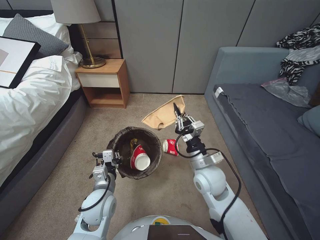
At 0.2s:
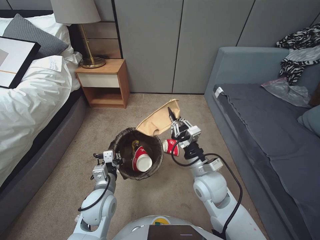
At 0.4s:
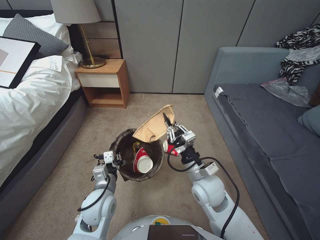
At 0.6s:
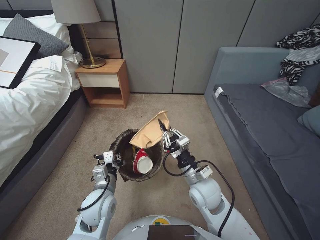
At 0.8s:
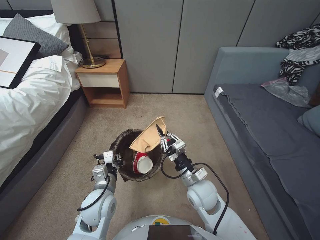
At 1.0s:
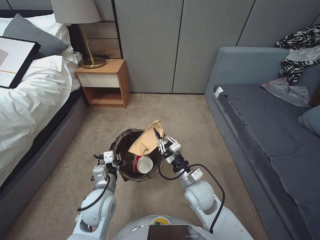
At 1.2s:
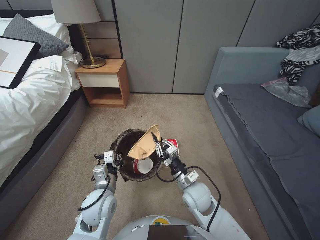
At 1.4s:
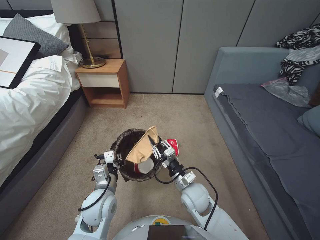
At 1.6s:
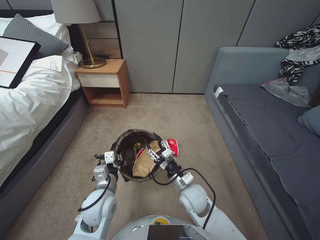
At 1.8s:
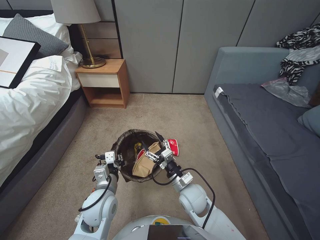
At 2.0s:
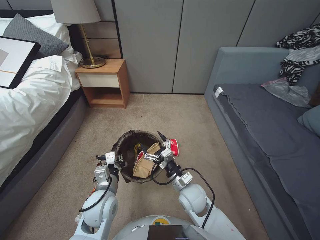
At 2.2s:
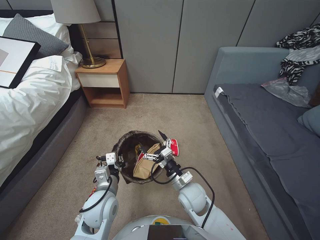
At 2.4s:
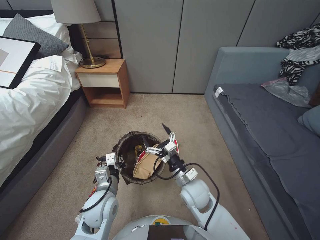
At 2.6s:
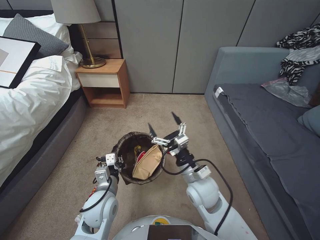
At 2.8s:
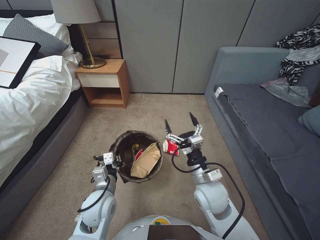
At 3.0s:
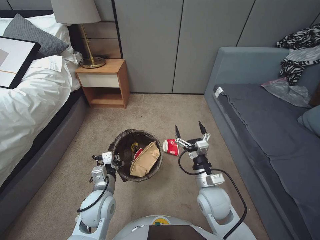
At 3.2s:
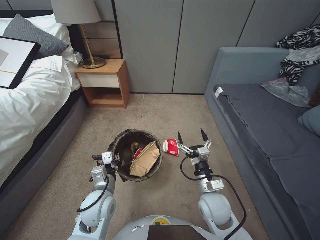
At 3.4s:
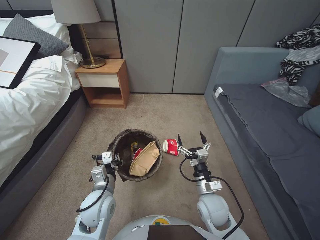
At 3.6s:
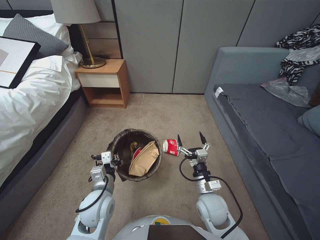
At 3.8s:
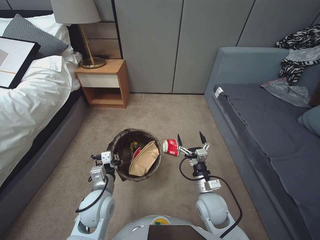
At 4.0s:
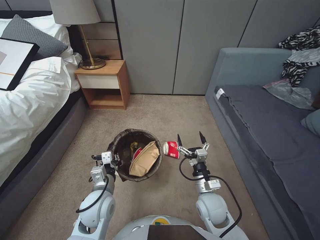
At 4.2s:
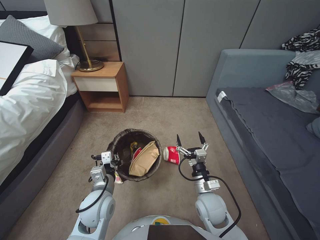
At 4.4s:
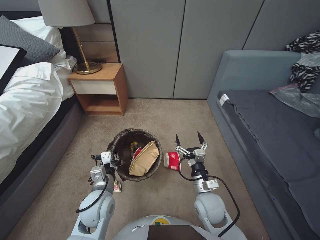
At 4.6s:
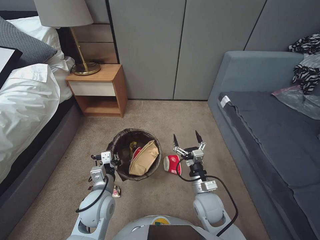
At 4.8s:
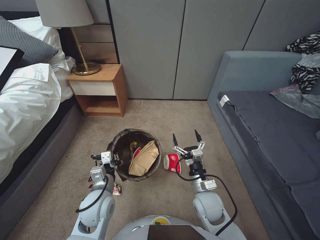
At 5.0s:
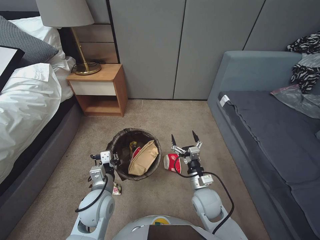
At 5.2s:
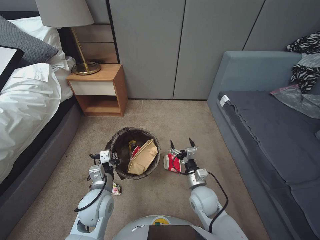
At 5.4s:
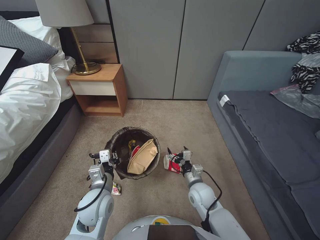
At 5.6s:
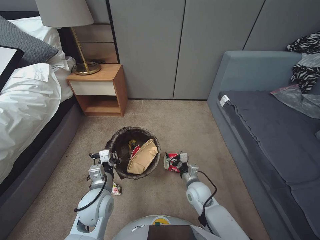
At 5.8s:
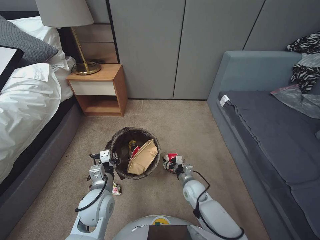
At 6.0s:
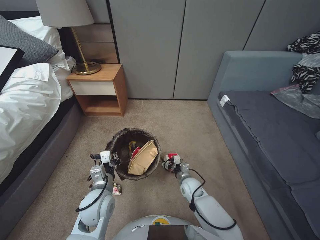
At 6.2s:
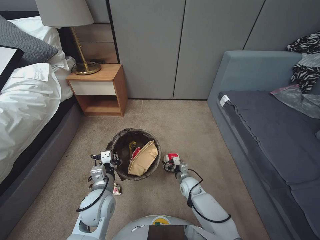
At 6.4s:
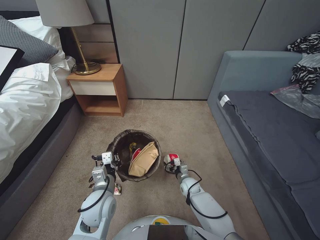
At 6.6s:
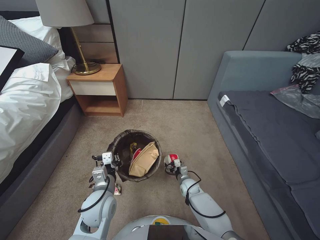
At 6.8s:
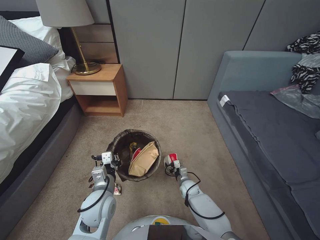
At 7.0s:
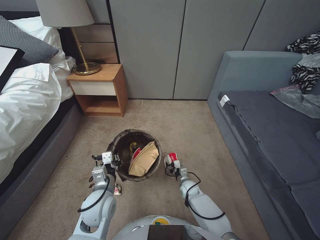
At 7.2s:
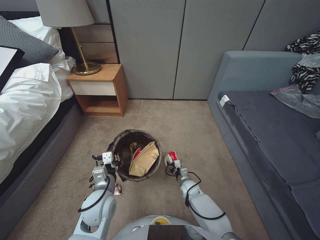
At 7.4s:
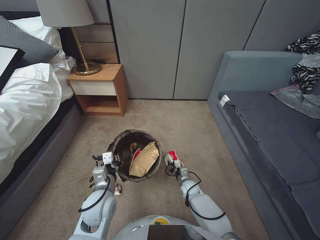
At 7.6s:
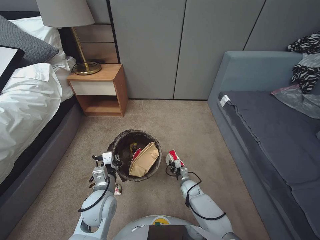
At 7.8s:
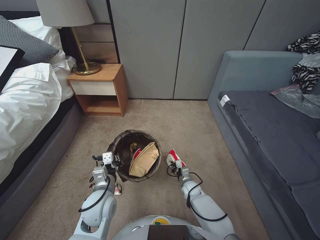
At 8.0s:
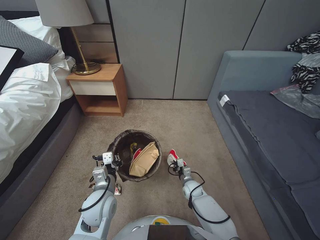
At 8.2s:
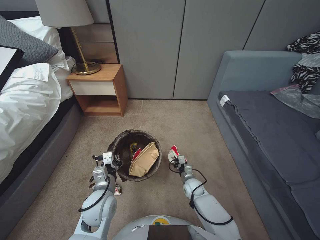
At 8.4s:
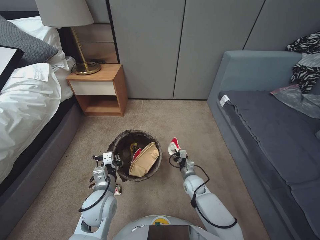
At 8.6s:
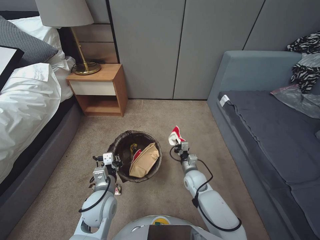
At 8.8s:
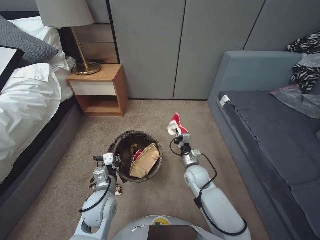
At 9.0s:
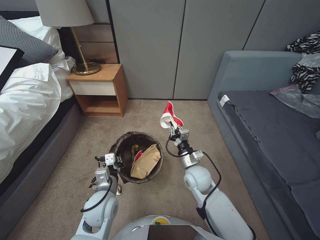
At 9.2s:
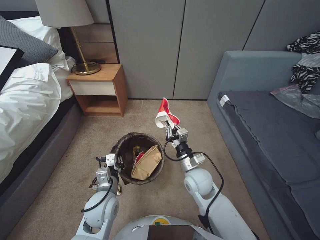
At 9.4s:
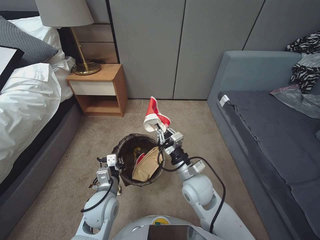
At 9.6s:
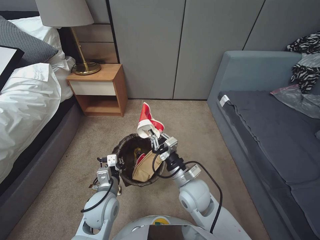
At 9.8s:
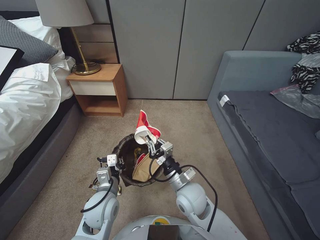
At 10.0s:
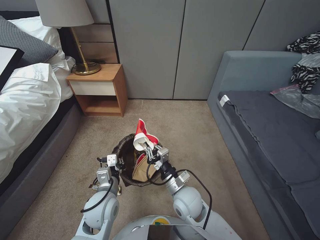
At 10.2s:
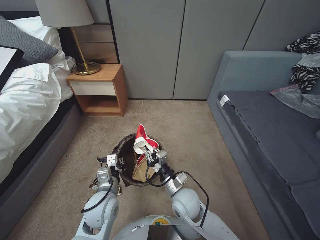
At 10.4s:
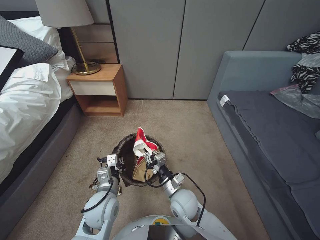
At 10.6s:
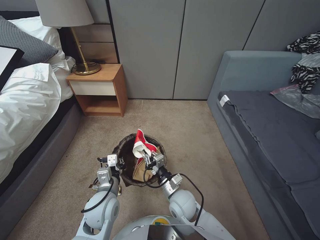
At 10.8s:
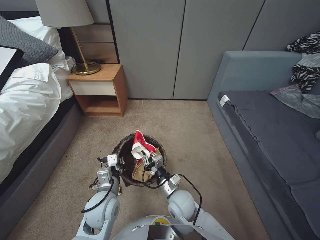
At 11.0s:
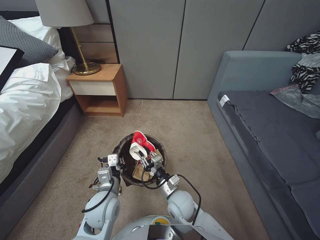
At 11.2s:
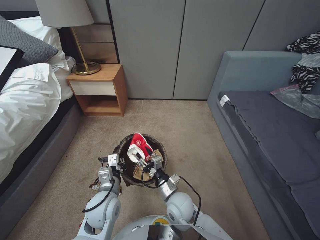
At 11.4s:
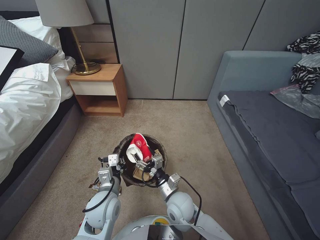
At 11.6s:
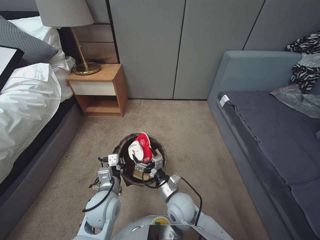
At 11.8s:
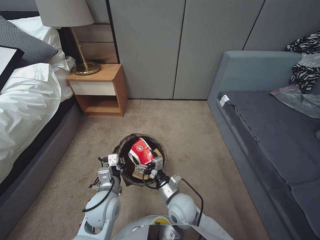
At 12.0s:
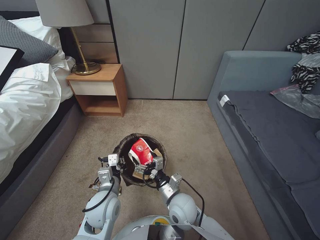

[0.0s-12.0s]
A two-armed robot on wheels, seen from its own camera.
Task of the whole recording: Pick up the trash bin, then pick up the garbage from the floor and place it into the trash bin.
0.0s to 1.6s: The right gripper moves downward, some 10 cm.
1.6s to 3.0s: The right gripper goes about 5 cm upward, and opens.
3.0s to 4.4s: The right gripper shifts approximately 5 cm downward.
4.4s to 6.0s: The right gripper moves downward and forward, approximately 10 cm.
6.0s to 7.6s: The right gripper moves downward, about 15 cm, and closes up.
7.6s to 9.0s: The right gripper goes roughly 20 cm upward, and closes up.
9.0s to 10.4s: The right gripper travels backward and to the left by some 15 cm.
10.4s to 12.0s: The right gripper opens up.

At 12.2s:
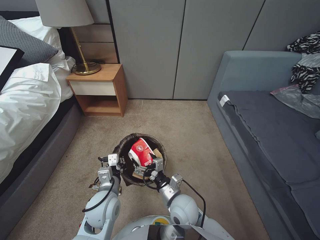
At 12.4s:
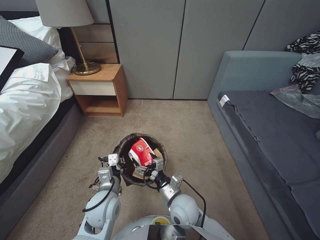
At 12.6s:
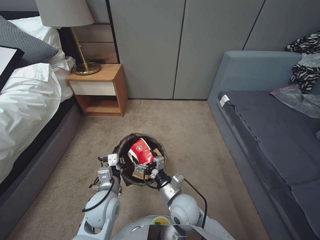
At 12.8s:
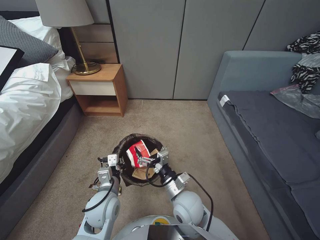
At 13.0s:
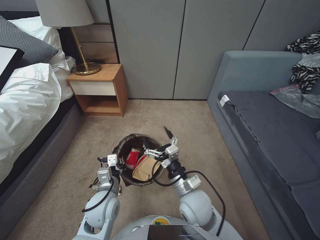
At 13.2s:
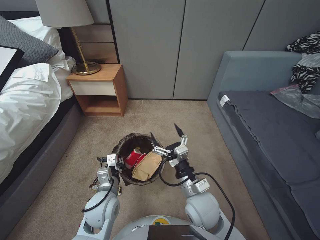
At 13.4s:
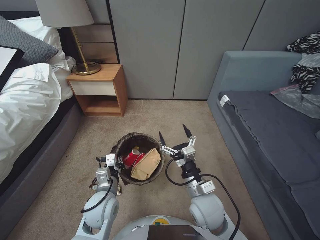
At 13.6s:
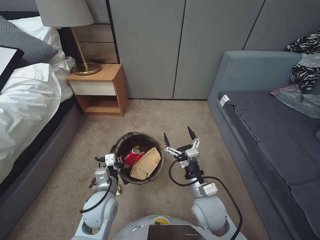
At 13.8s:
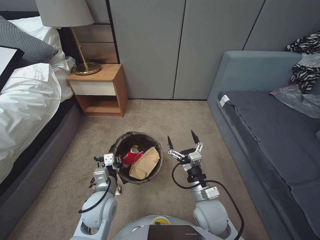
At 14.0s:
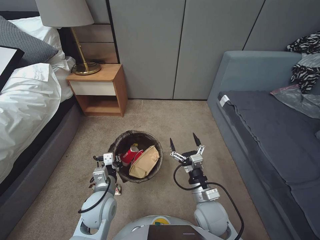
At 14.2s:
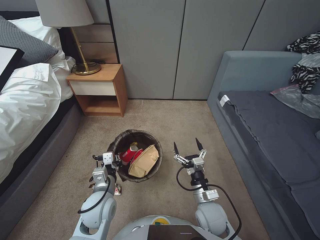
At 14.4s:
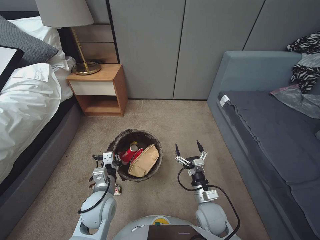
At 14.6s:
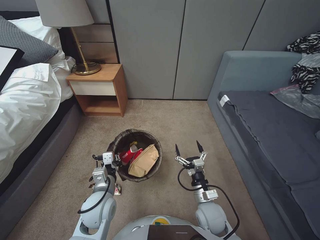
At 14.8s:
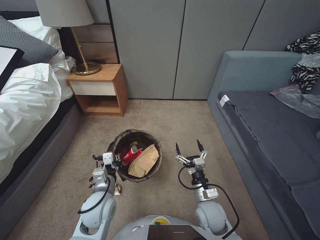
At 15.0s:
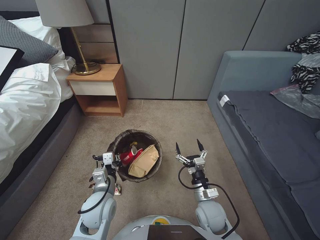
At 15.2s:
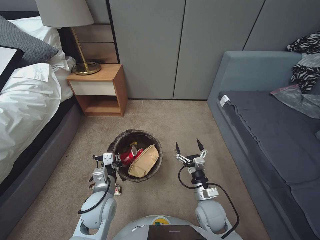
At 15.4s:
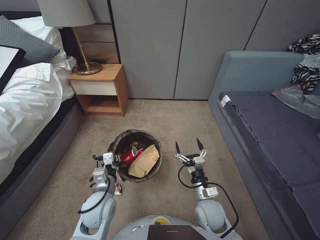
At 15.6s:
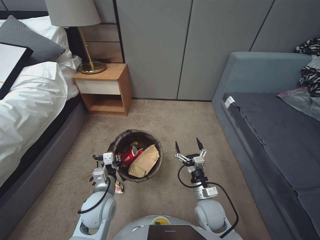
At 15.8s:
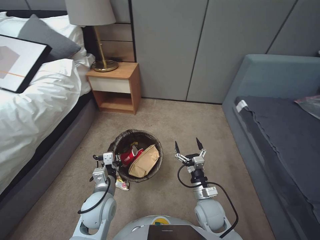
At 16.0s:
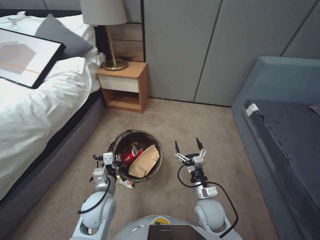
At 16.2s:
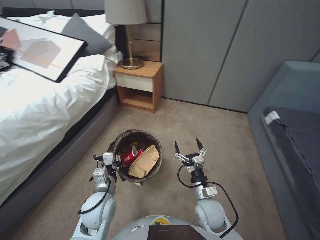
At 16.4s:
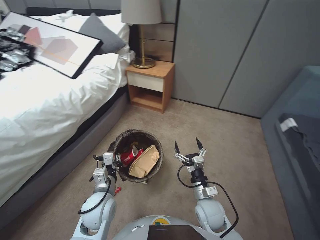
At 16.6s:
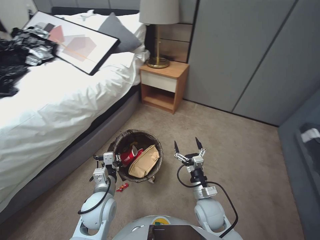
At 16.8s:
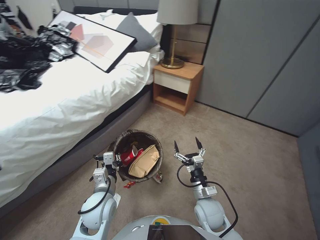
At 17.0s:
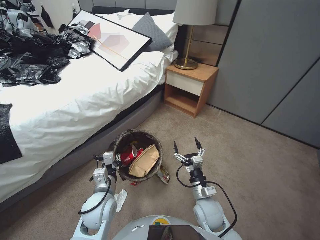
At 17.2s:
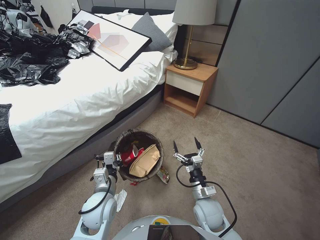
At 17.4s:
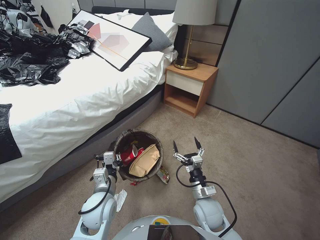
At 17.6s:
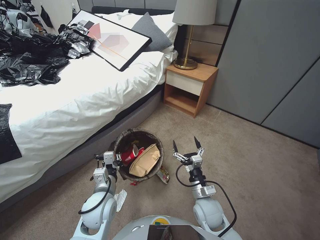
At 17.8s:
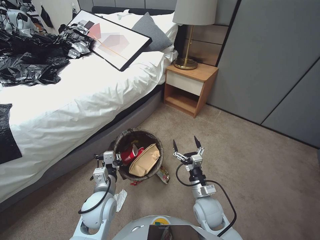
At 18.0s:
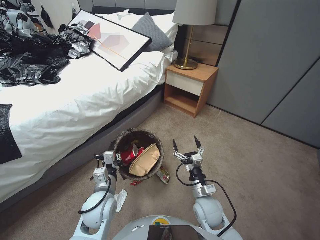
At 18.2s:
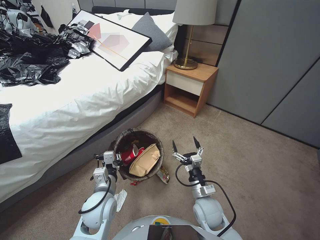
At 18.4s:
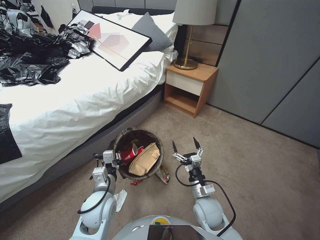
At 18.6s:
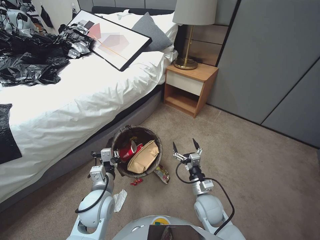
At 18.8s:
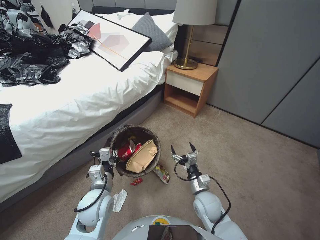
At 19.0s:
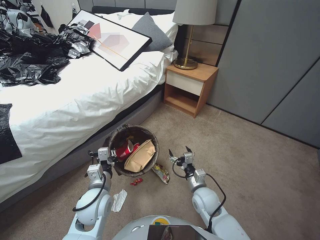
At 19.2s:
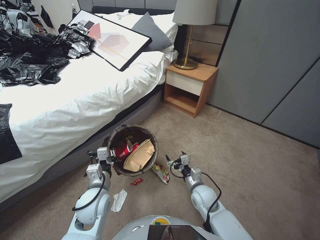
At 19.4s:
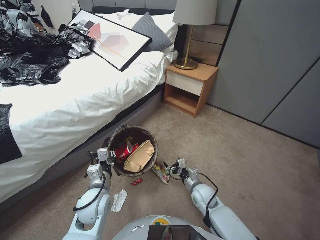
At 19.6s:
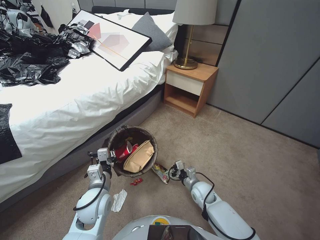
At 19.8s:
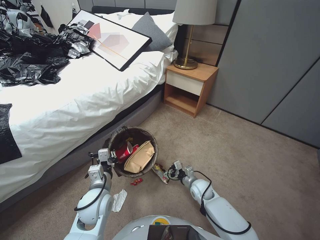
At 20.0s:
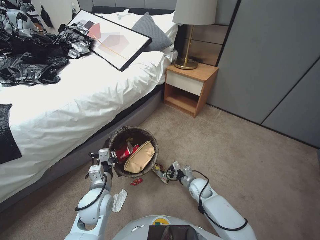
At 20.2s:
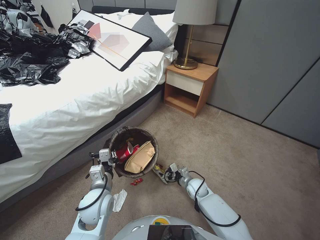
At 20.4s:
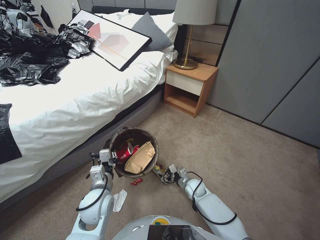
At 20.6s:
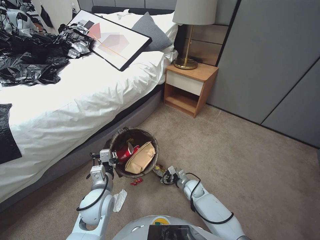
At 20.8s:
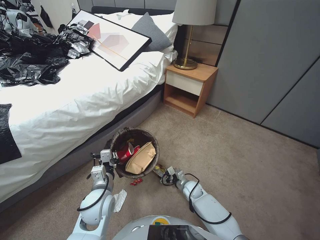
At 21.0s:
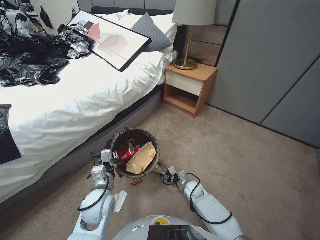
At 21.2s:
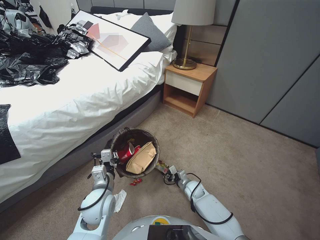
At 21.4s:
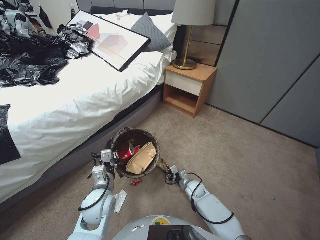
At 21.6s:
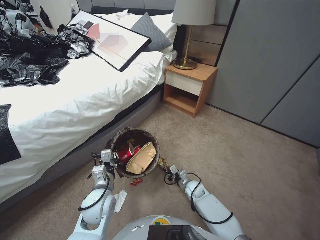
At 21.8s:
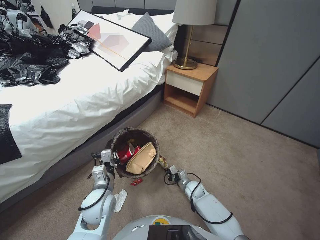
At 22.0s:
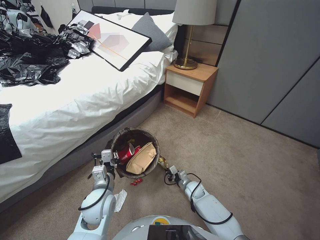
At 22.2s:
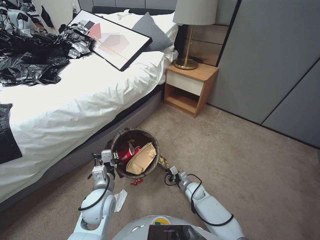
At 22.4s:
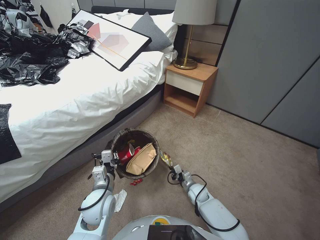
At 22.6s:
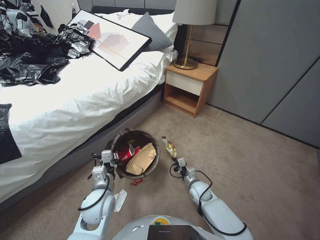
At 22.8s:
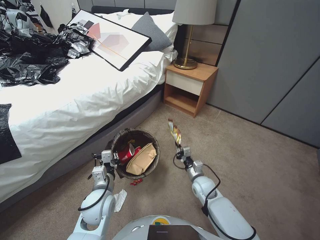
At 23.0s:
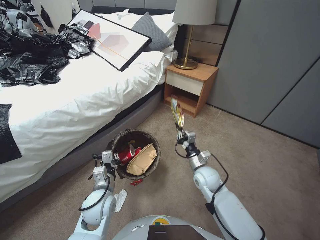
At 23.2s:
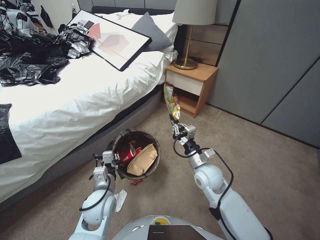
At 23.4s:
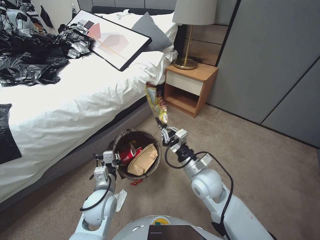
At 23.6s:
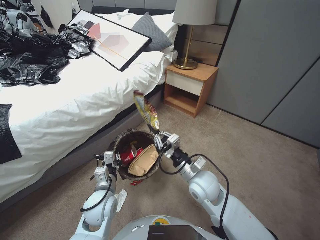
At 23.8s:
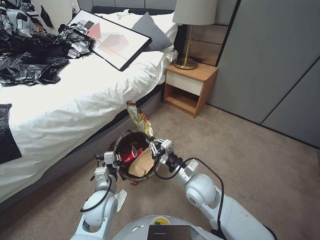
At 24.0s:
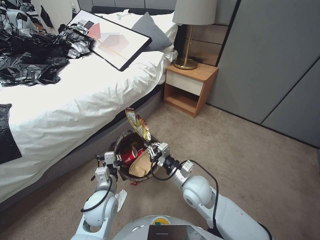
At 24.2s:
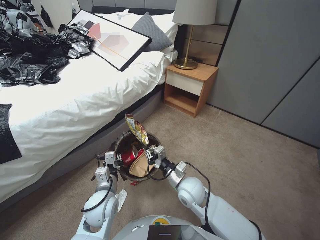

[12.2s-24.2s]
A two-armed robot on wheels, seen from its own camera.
Task of the whole recording: Pick up the trash bin, then pick up the garbage from the floor and place it into the trash bin.
12.2s to 13.8s: The right gripper goes approximately 10 cm to the right.
13.8s to 15.2s: The right gripper heads downward, covering roughly 10 cm.
18.2s to 19.8s: The right gripper is displaced downward and forward by approximately 15 cm.
19.8s to 21.2s: The right gripper is displaced downward by some 10 cm.
21.2s to 22.6s: The right gripper closes its fingers.
22.6s to 24.2s: The right gripper heads upward and to the left, covering approximately 20 cm.
